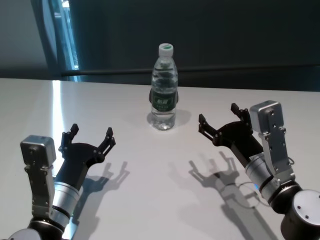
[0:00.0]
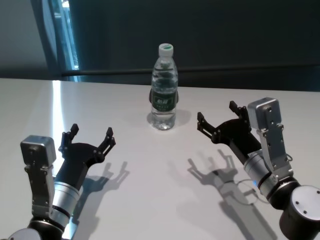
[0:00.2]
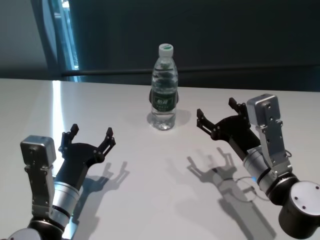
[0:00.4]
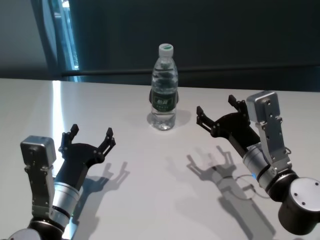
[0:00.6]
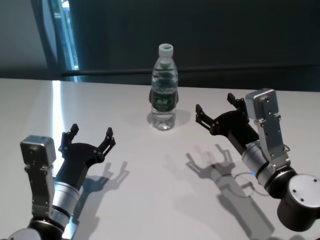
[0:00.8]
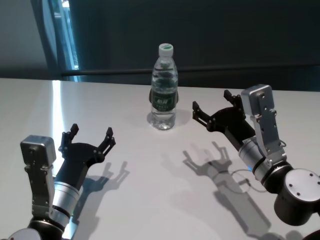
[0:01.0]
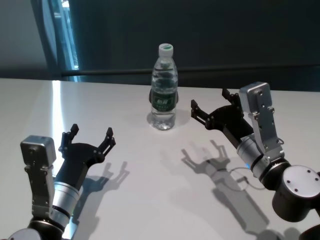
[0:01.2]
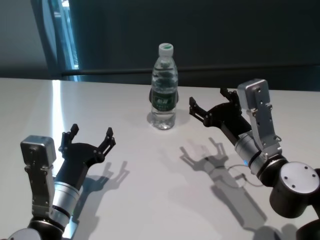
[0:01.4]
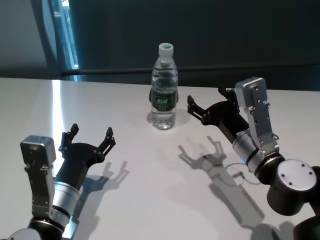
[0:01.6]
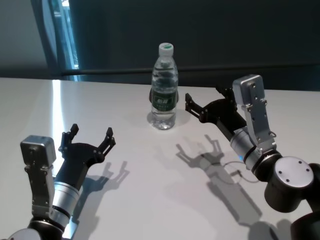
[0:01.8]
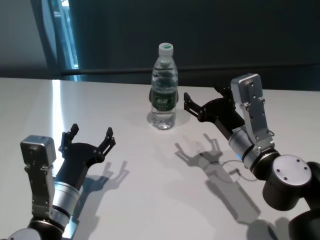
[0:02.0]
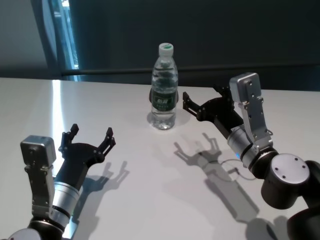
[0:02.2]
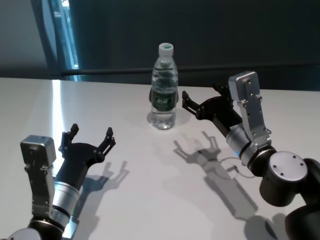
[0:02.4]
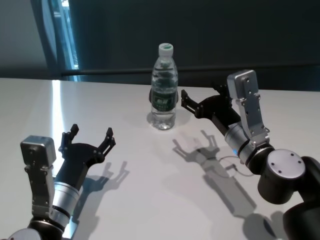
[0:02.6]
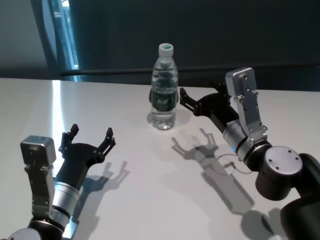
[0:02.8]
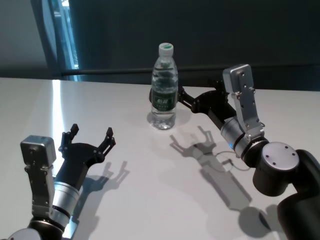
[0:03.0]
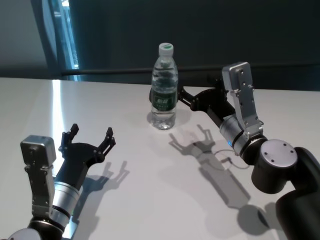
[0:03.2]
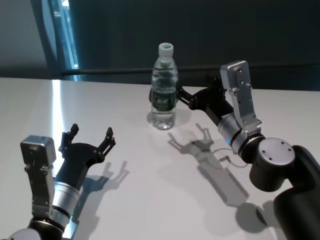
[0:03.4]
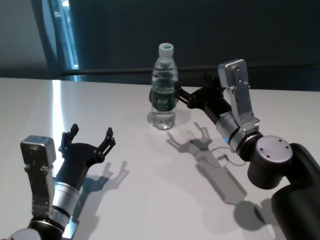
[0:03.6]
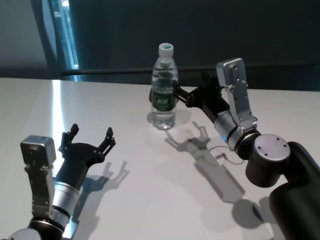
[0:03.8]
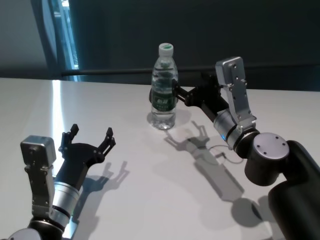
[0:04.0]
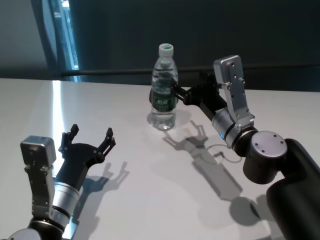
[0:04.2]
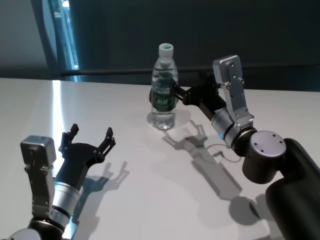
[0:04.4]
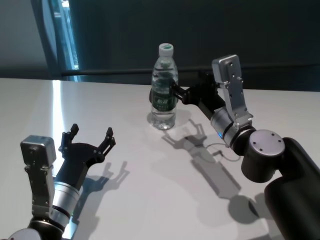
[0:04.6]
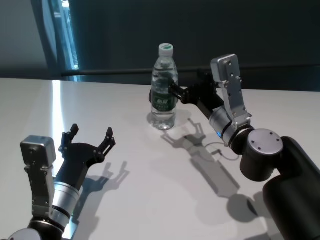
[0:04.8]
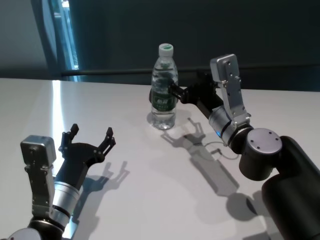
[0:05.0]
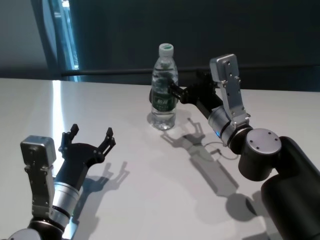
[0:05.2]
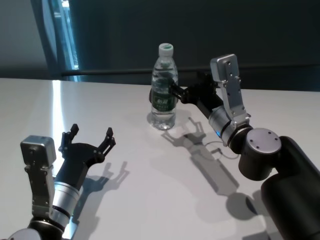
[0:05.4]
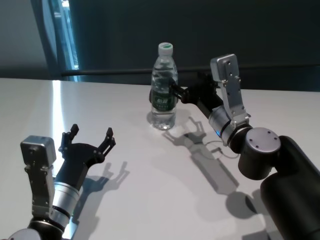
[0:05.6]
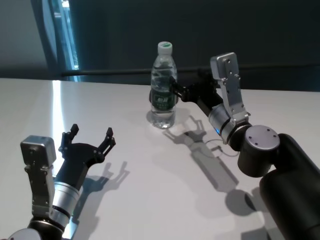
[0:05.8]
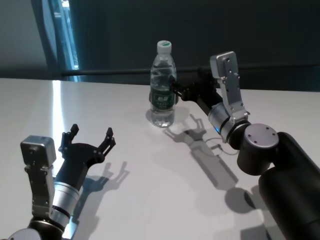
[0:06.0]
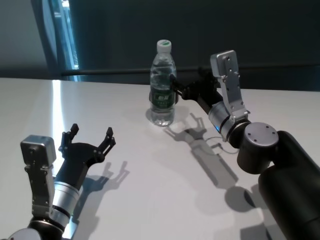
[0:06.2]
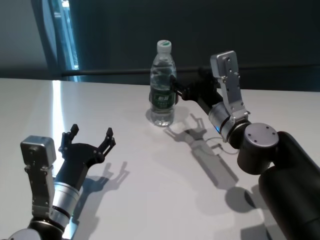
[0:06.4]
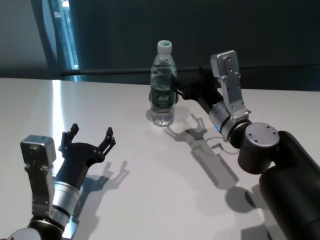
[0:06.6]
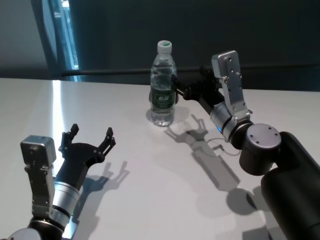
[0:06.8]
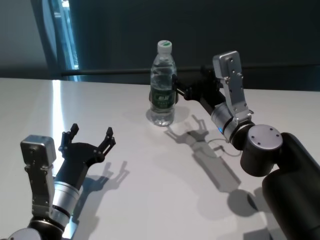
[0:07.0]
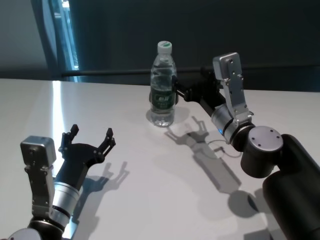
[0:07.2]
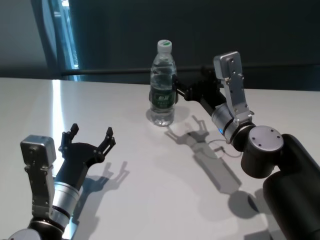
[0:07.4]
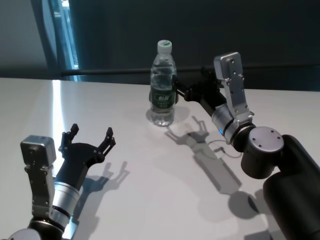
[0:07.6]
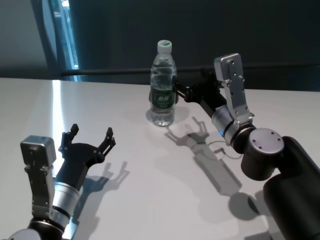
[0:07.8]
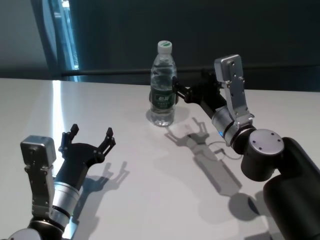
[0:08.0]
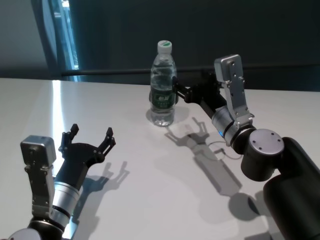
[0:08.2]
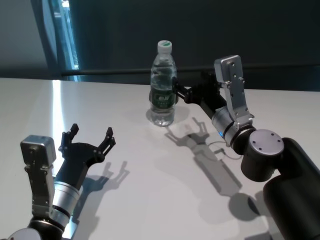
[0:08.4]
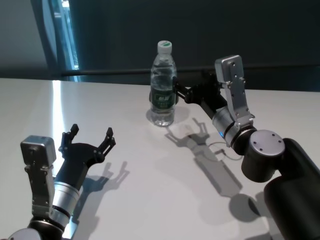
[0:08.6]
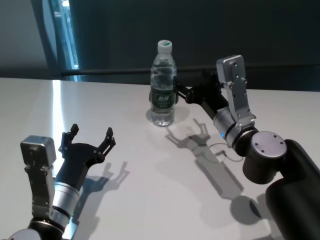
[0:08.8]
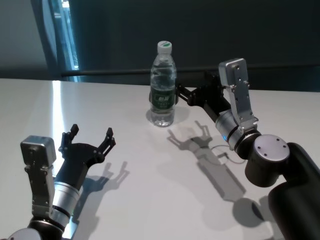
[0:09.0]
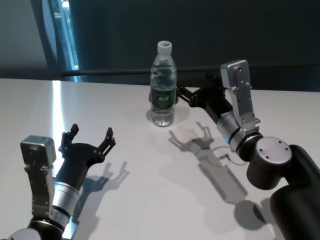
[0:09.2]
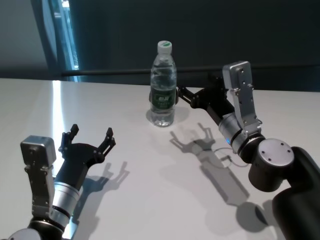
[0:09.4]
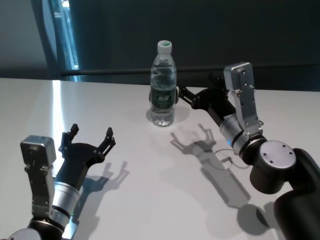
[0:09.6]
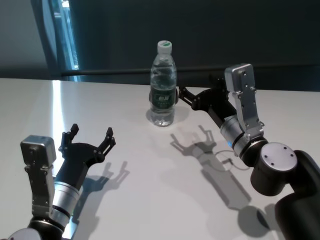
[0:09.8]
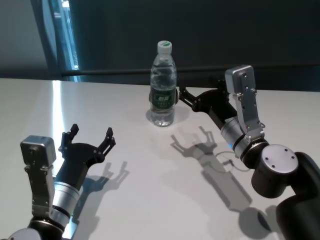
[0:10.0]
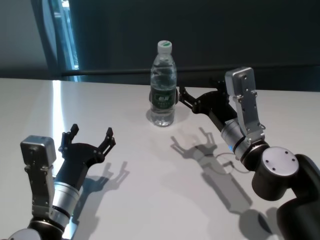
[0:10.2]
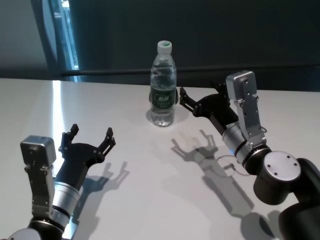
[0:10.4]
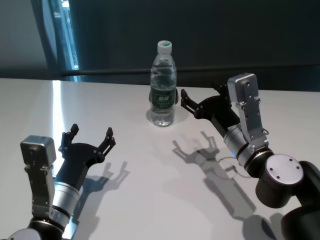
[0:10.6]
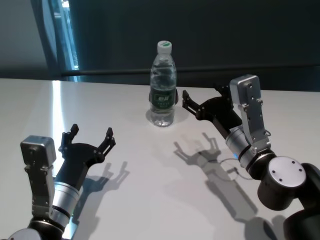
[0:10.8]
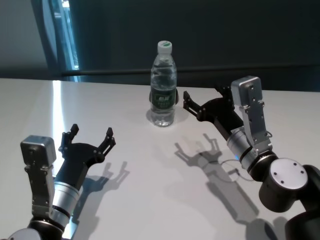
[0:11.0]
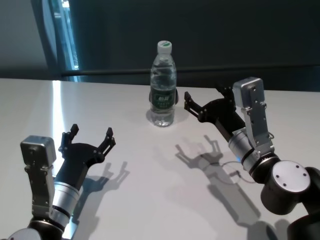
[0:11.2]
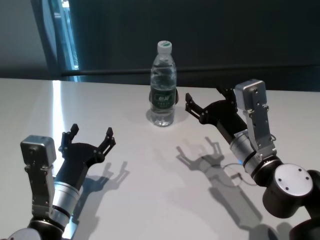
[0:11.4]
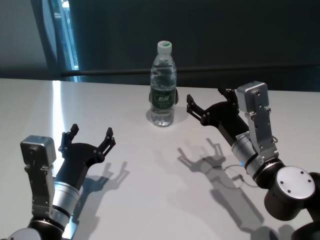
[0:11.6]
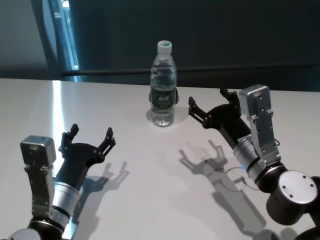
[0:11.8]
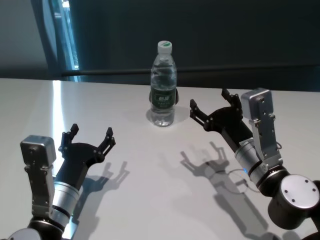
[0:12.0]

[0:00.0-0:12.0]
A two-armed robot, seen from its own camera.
Task of the whole recording: return to a safe position after touching an obstacle with your arm on the white table.
Step, 0:00.0 to 0:09.6: Touch the bottle with right gripper.

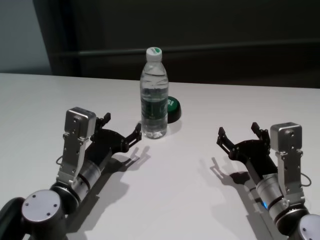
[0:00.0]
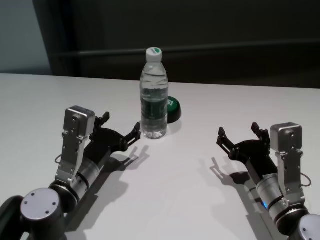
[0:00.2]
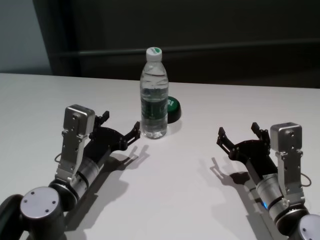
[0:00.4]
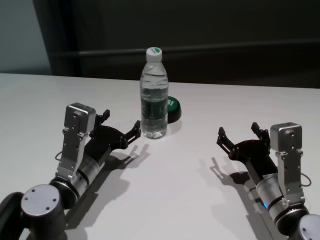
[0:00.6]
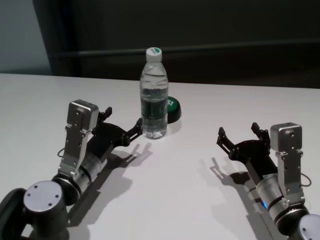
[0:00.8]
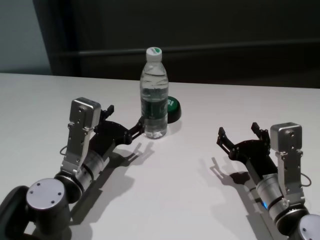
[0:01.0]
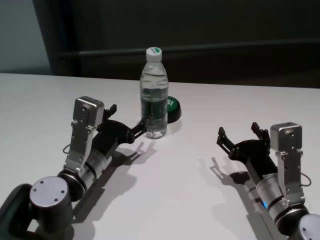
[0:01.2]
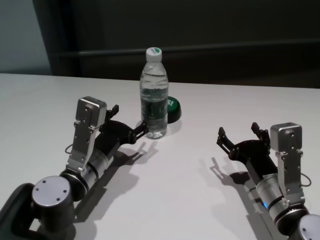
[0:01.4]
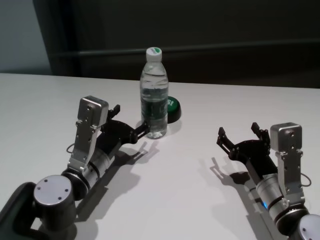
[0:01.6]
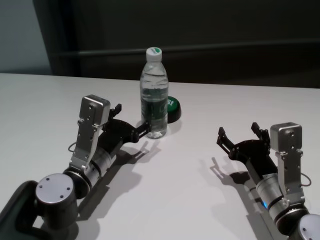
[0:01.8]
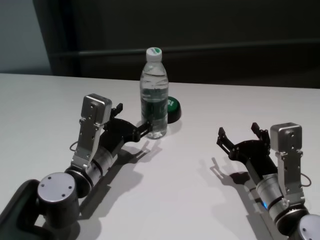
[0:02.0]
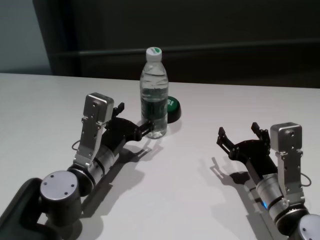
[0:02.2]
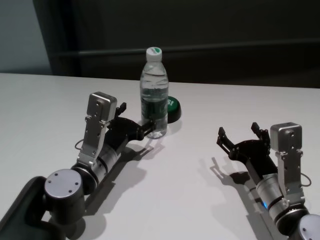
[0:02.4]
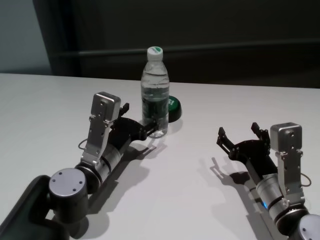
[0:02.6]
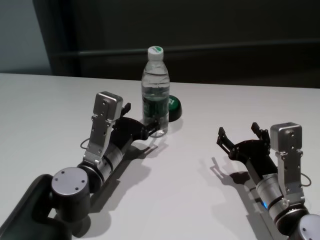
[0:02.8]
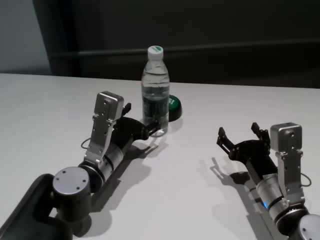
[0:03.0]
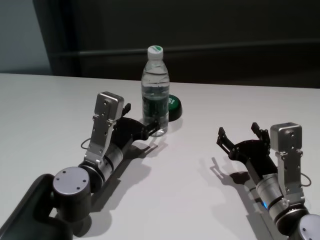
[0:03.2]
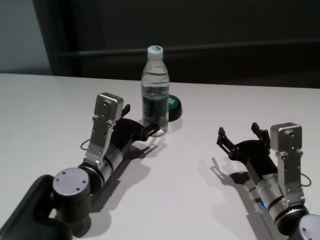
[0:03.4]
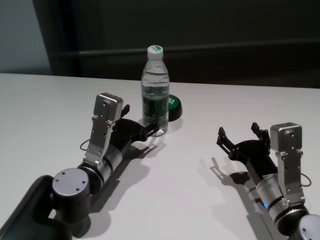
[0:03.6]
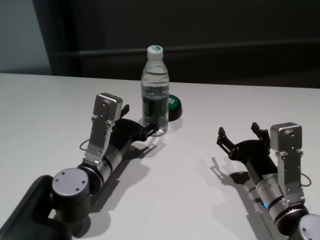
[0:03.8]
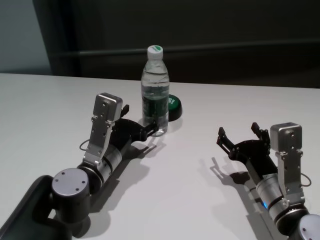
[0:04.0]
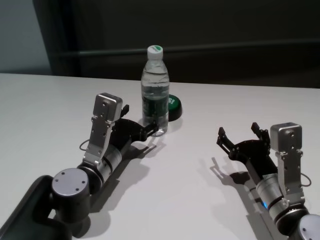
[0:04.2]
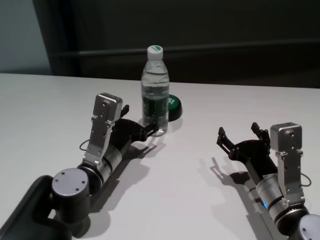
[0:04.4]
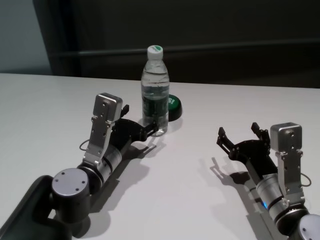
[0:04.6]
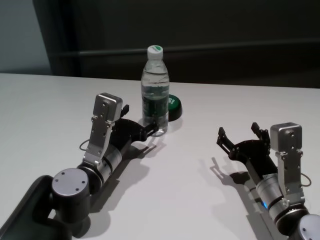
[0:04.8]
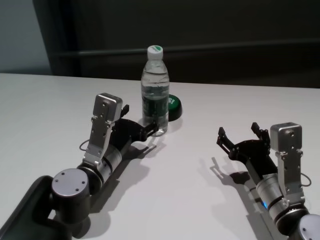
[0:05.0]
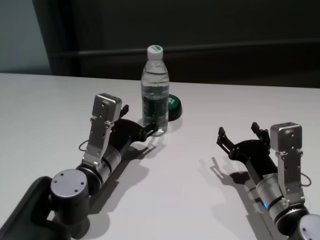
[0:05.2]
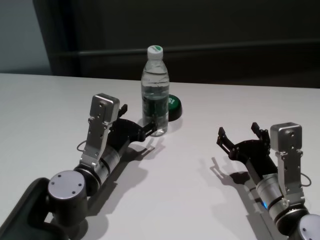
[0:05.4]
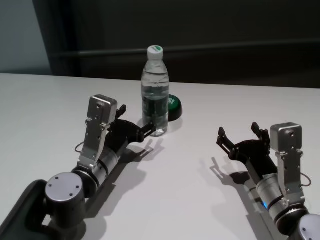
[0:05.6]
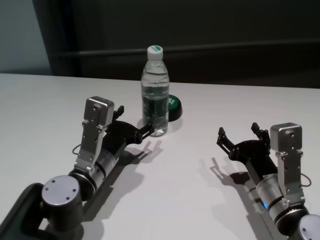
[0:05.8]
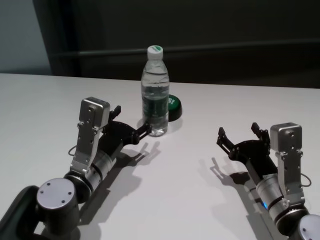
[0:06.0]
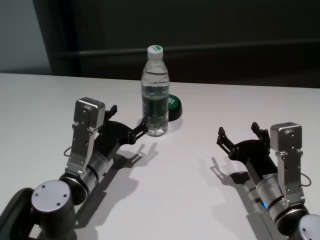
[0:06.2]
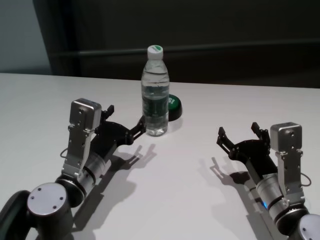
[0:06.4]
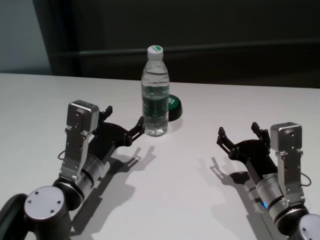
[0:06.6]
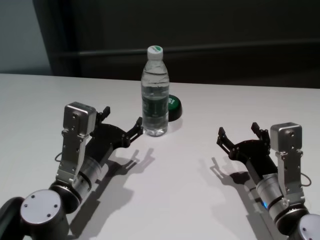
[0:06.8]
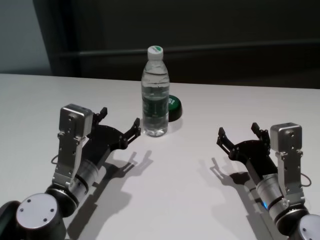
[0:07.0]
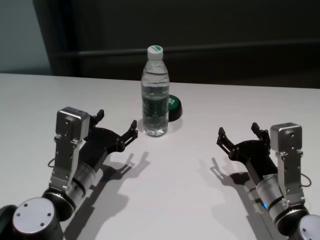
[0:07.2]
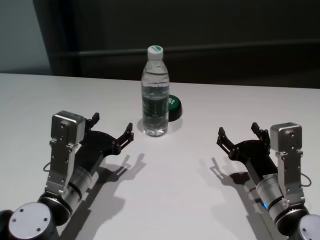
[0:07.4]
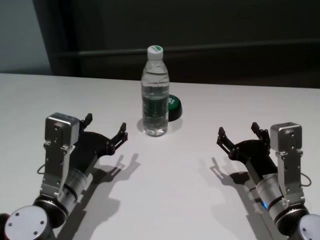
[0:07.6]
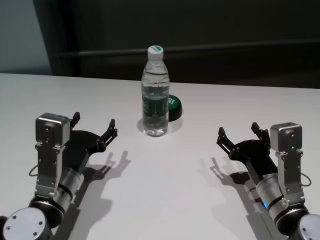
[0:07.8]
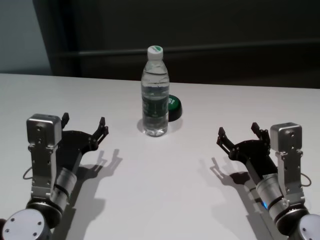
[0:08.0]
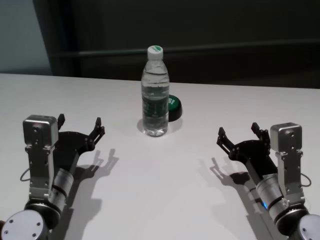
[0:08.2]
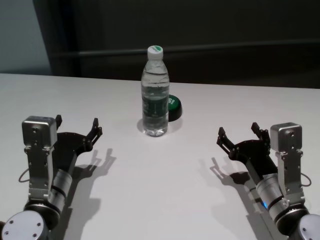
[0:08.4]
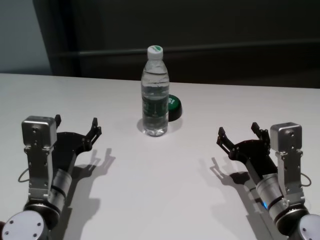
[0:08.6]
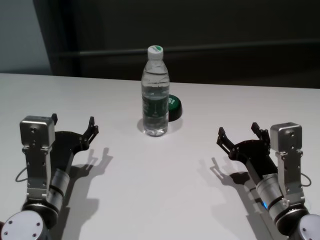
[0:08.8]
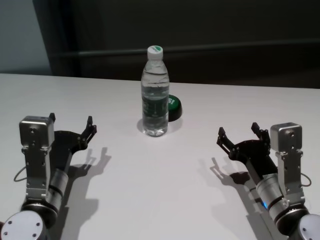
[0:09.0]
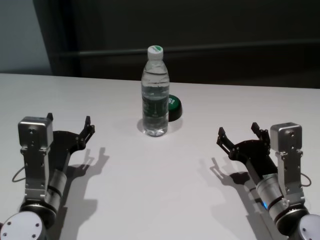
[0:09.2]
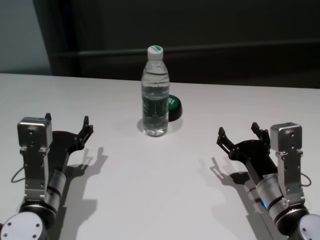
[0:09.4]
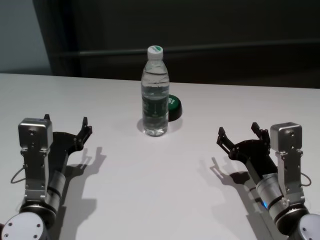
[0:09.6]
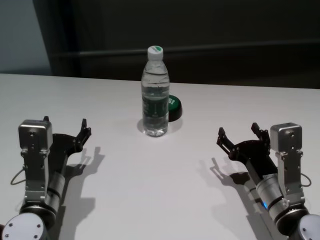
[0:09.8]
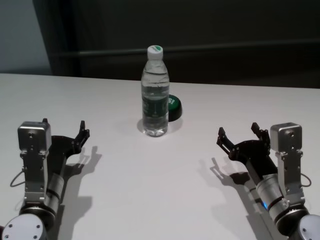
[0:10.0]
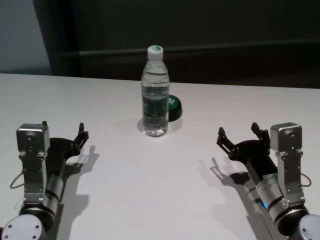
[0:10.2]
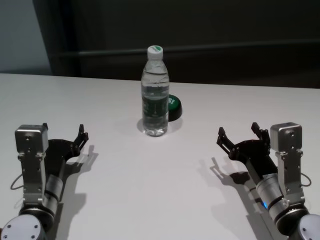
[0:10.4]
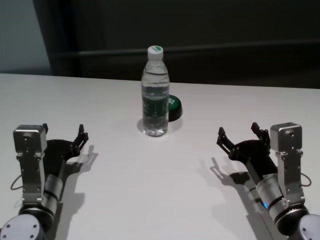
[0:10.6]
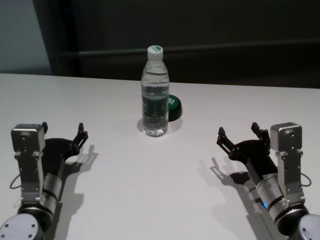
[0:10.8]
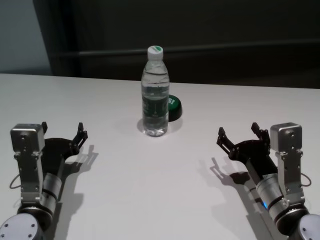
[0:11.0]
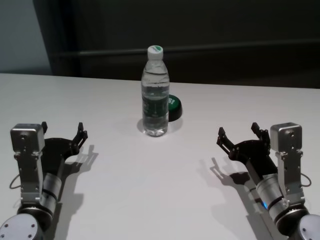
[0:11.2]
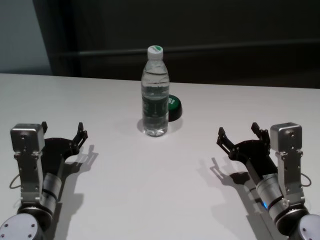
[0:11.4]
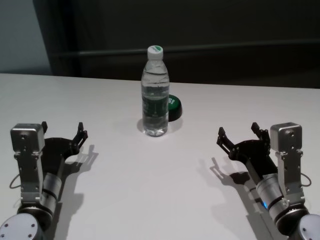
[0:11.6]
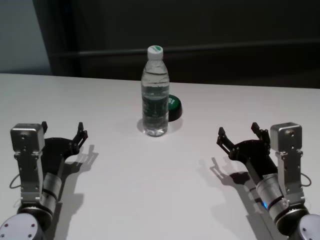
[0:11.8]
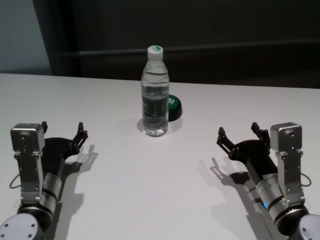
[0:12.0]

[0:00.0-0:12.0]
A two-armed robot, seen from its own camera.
Task of the whole recording: return to a safe position after touching an obstacle with your arm on the white table.
Step, 0:00.0 to 0:06.2: Touch the bottle with left gripper.
